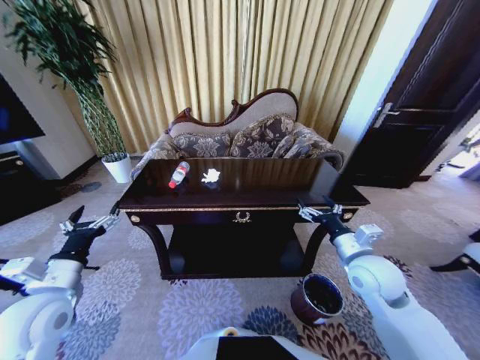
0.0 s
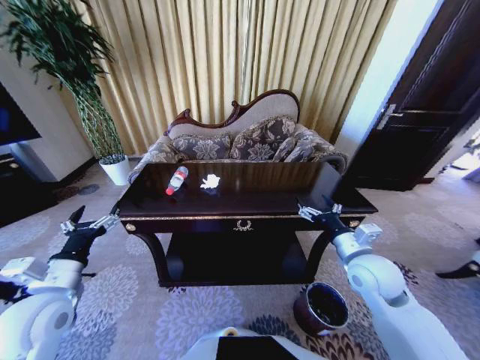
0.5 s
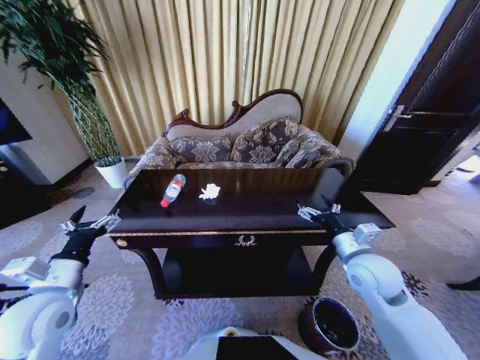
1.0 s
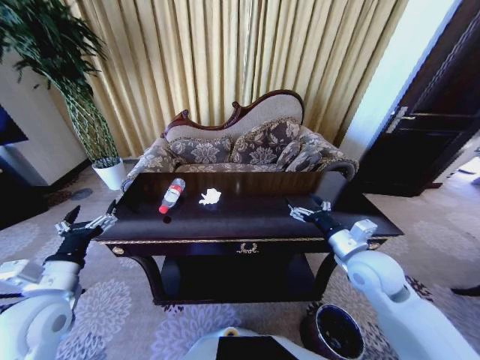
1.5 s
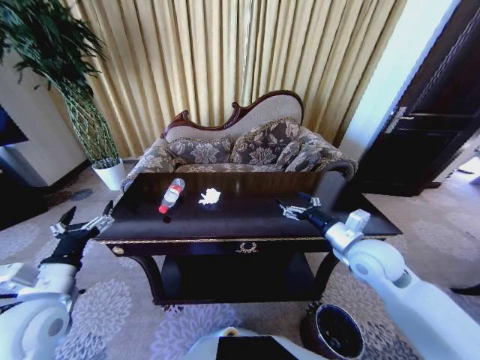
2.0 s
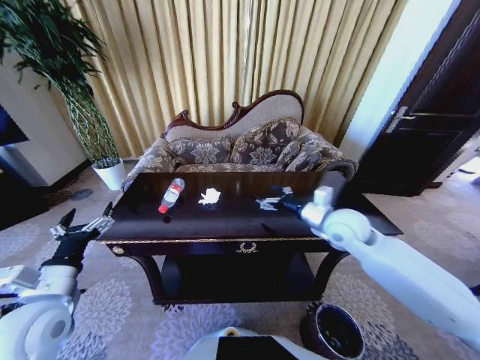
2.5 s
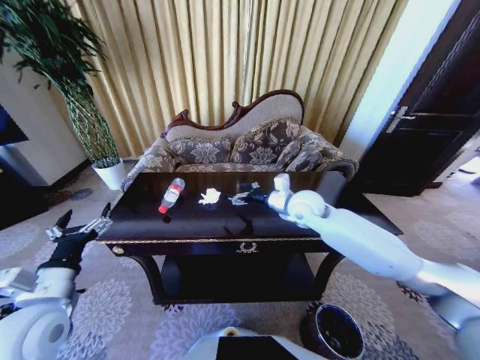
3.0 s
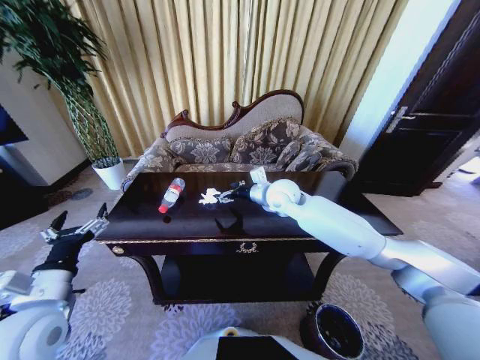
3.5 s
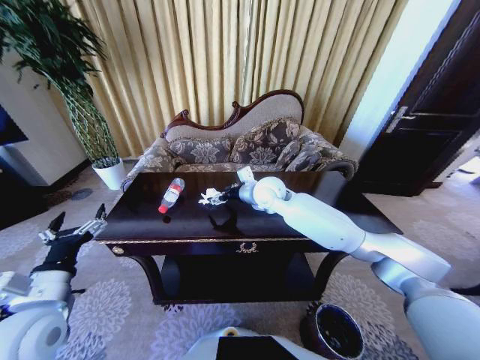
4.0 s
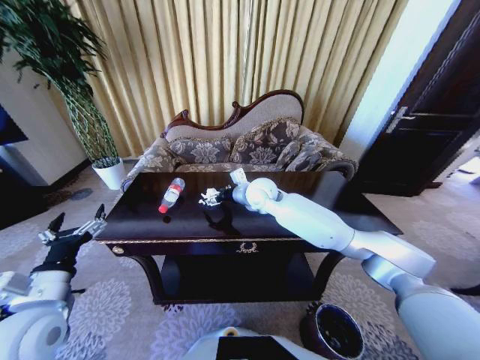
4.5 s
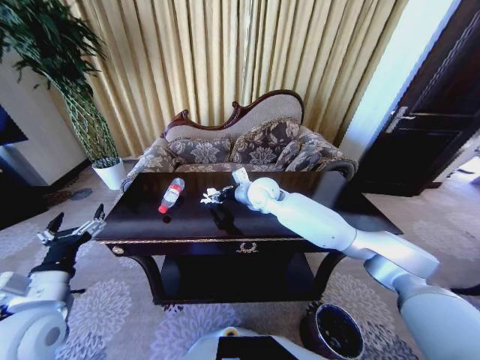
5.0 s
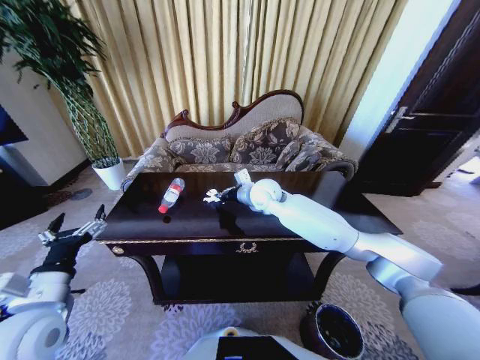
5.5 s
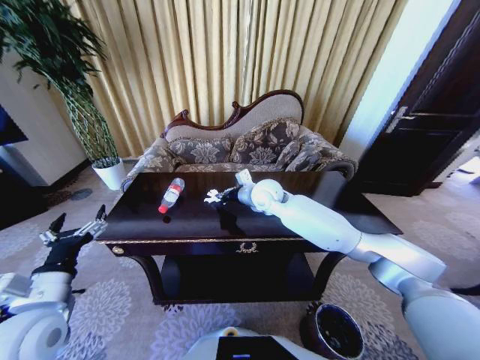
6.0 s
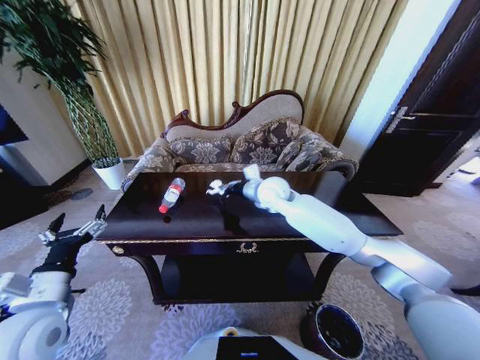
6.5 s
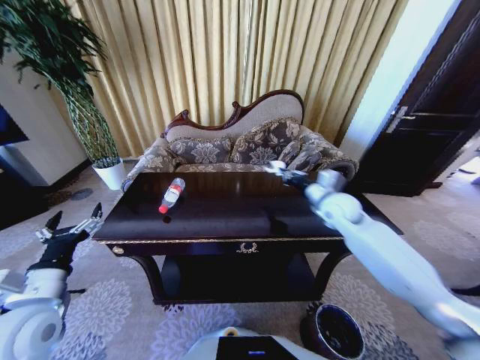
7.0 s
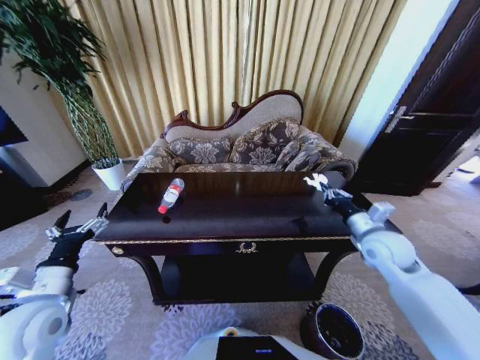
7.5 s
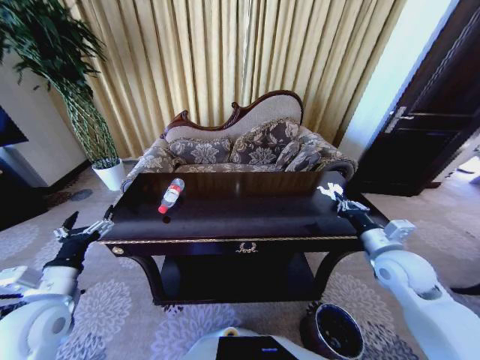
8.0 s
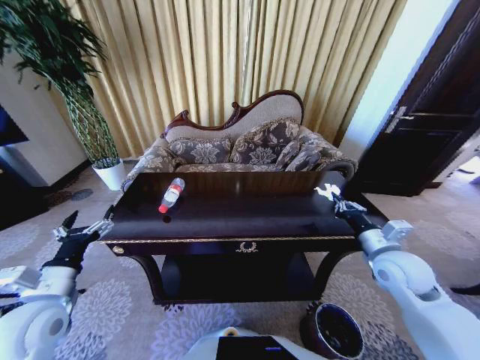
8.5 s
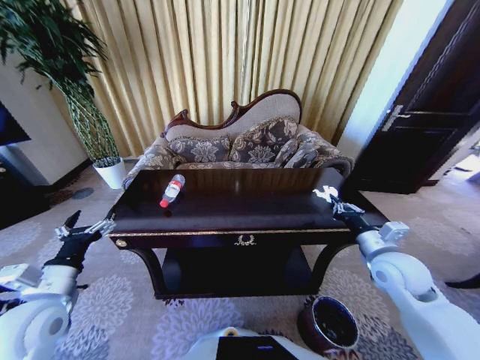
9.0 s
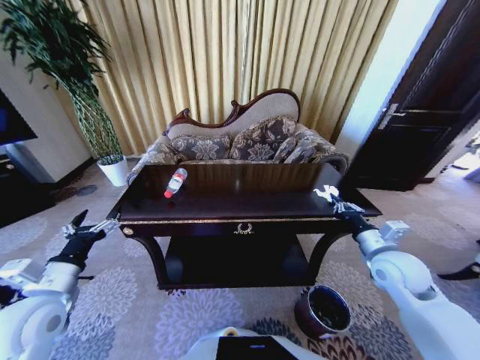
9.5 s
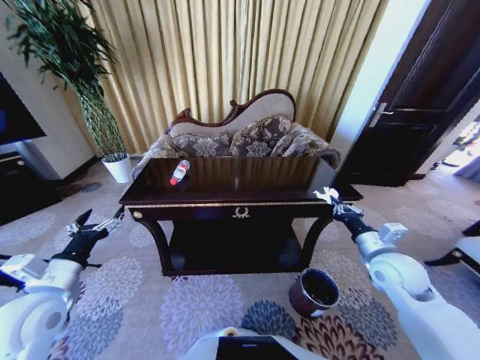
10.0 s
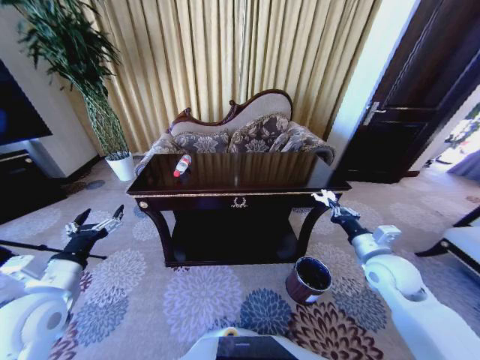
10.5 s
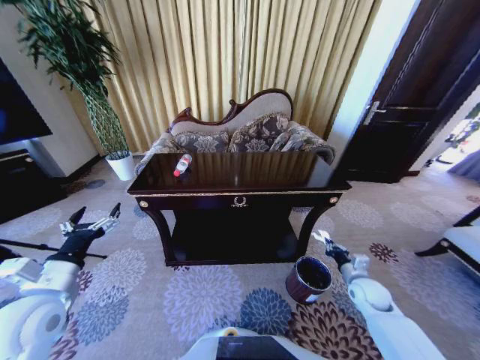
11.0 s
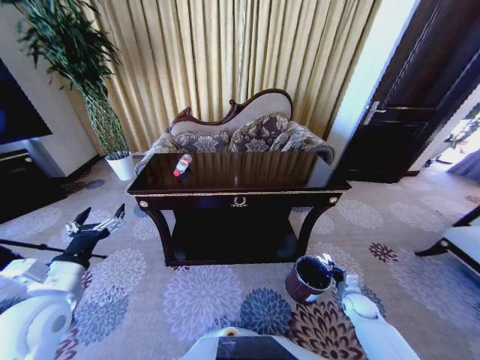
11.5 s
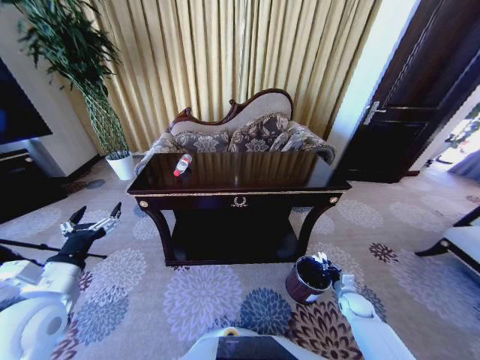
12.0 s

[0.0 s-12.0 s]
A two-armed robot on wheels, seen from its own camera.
Task of the whole recording: Move to the front of the table and place the trash on the table into the trash bin.
2.0 to 4.0 s: The right gripper heads to the left and forward, covering approximately 30 cm.
4.0 to 6.0 s: The right gripper closes its fingers.
6.0 to 8.0 s: The right gripper goes approximately 35 cm to the right and backward.
10.0 to 12.0 s: The right gripper is displaced downward by some 30 cm.

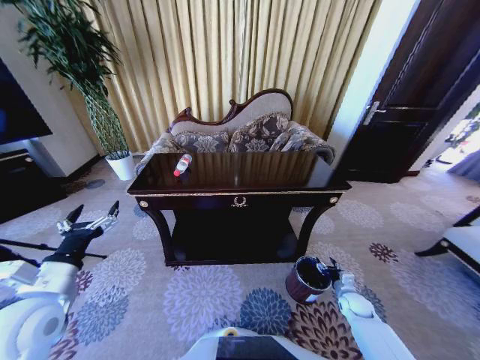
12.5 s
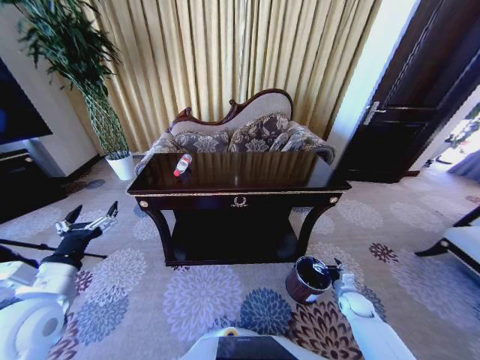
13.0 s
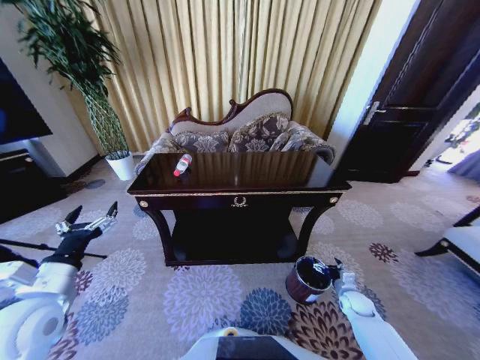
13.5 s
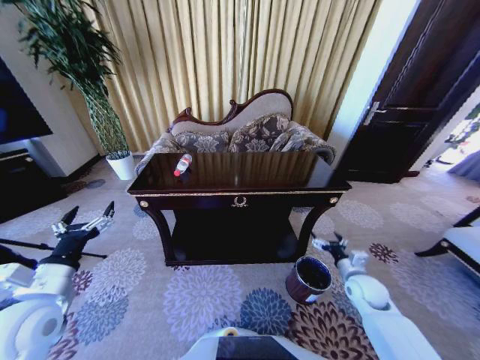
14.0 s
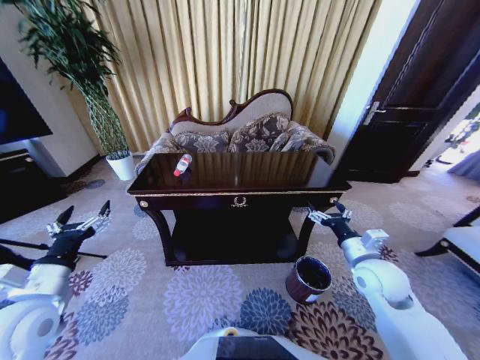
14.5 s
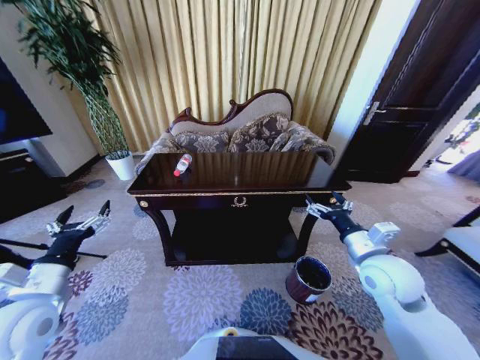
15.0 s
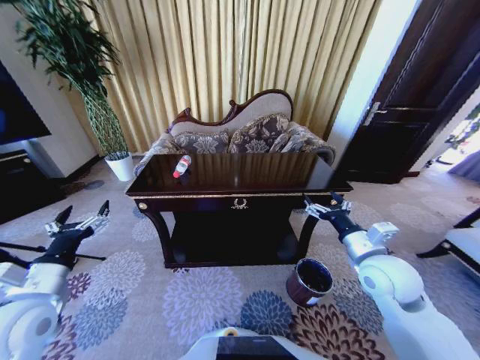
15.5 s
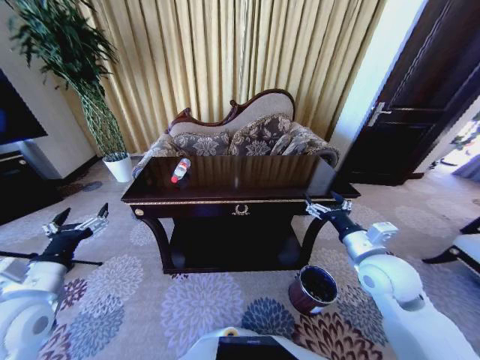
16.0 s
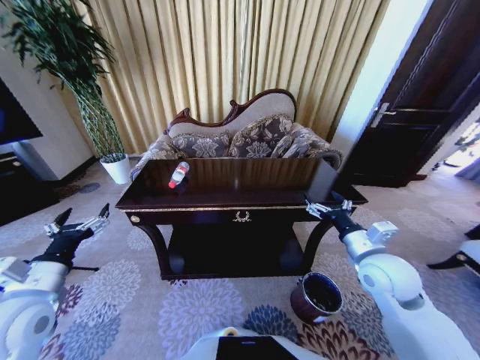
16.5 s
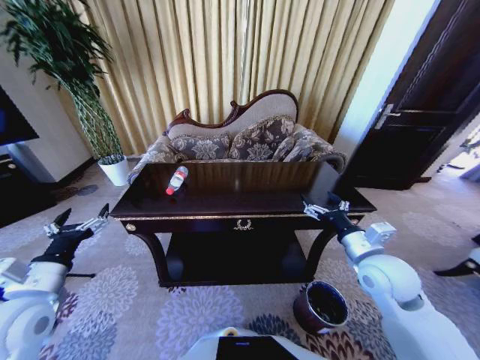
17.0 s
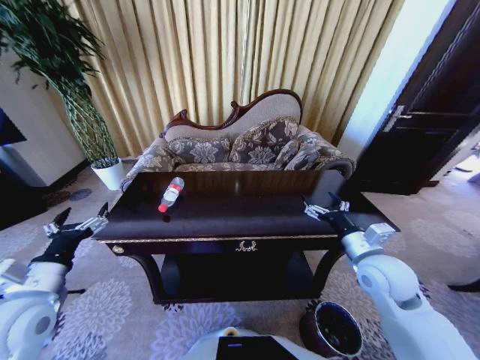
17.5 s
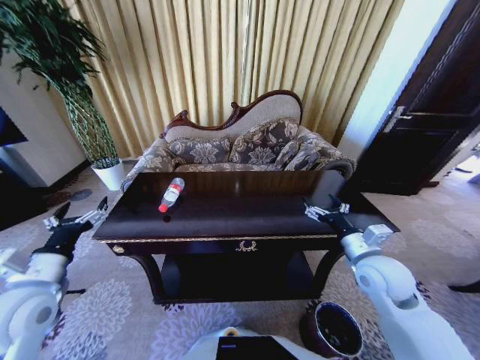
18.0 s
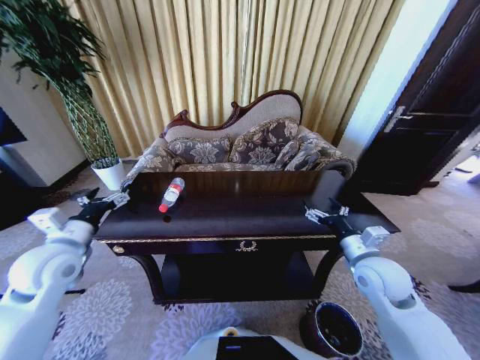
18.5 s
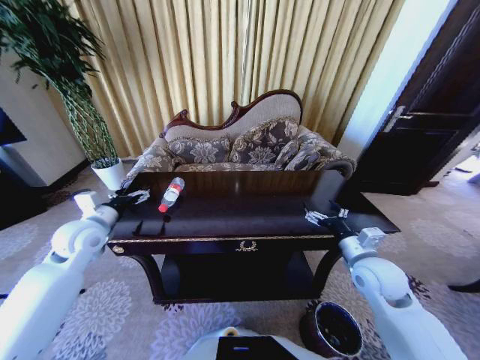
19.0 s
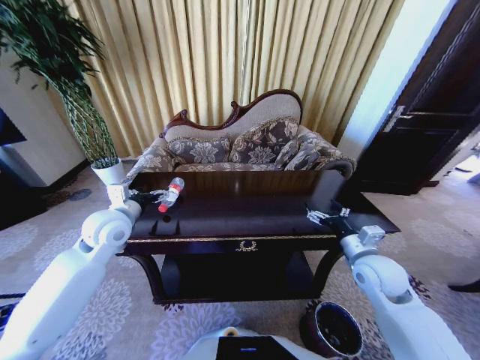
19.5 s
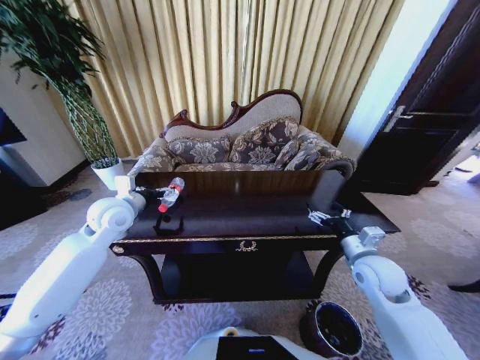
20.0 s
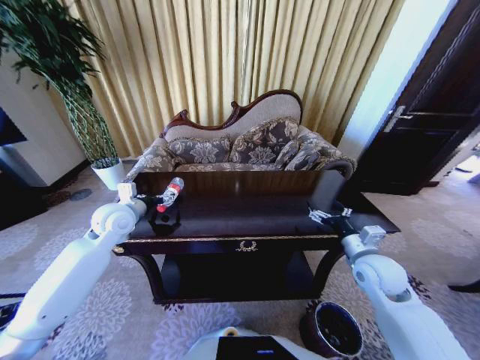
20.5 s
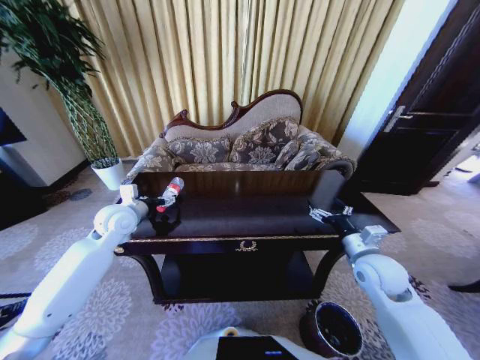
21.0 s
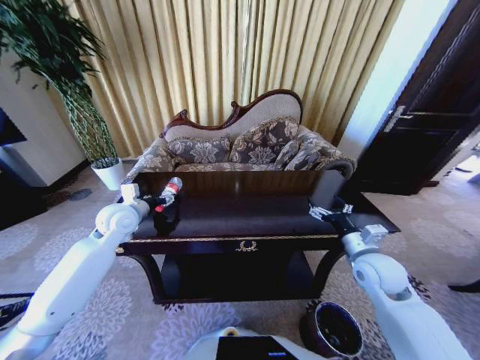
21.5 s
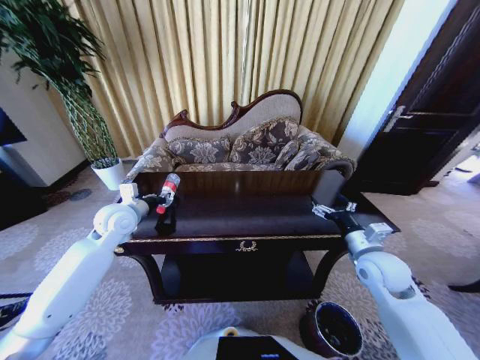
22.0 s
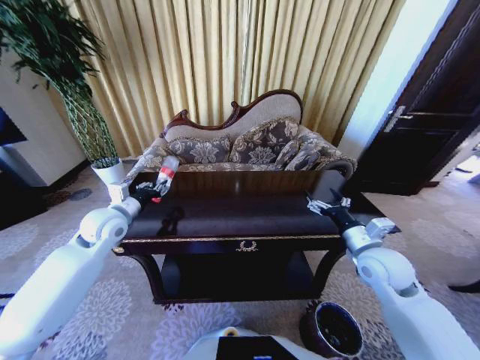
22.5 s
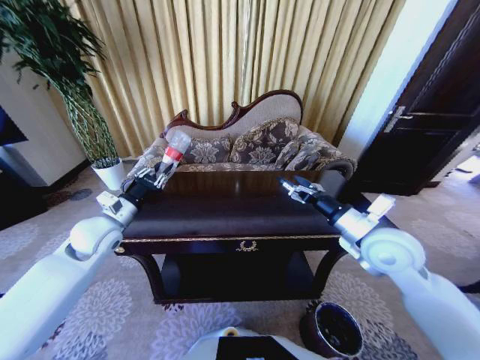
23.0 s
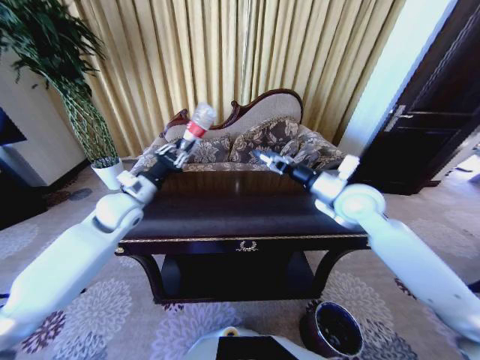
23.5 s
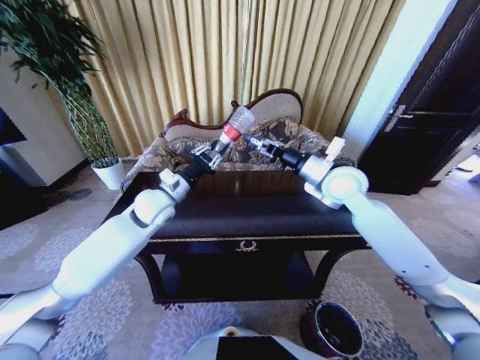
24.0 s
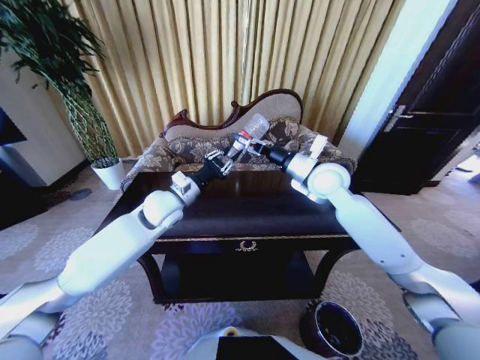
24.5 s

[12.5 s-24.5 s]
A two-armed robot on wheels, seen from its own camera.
Task of the whole recording: Move to the front of the table and place the trash on the table into the trash bin.
12.5 to 14.5 s: The right gripper shifts roughly 30 cm upward, and opens up.
16.5 to 18.5 s: The left gripper is displaced forward by some 10 cm.
18.5 to 20.5 s: The left gripper shifts some 15 cm forward and to the right.
20.5 to 22.5 s: The left gripper closes.
22.5 to 24.5 s: The right gripper heads forward, upward and to the left, covering roughly 25 cm; the left gripper travels to the right by roughly 15 cm.

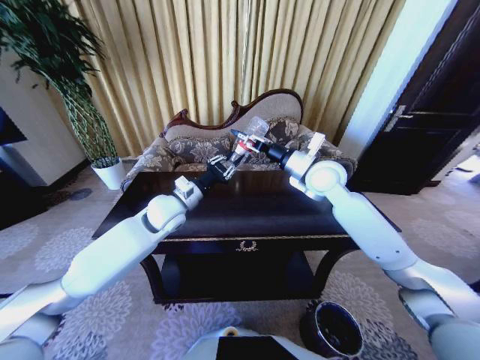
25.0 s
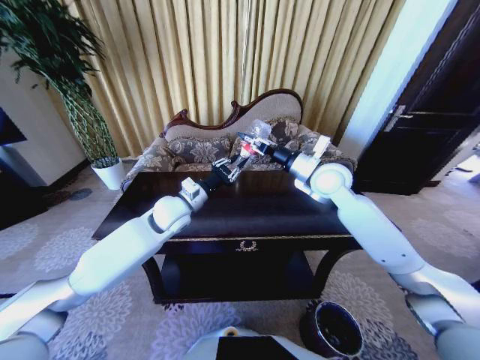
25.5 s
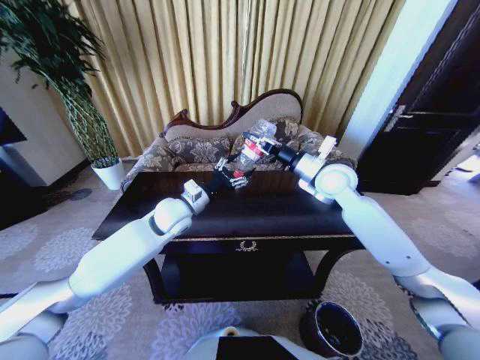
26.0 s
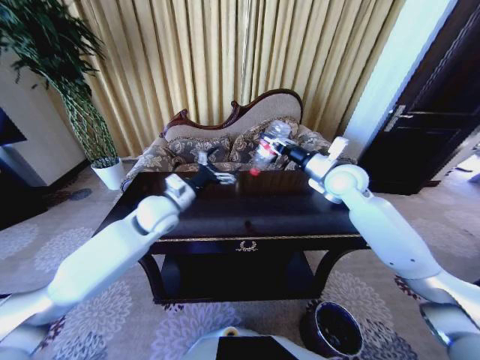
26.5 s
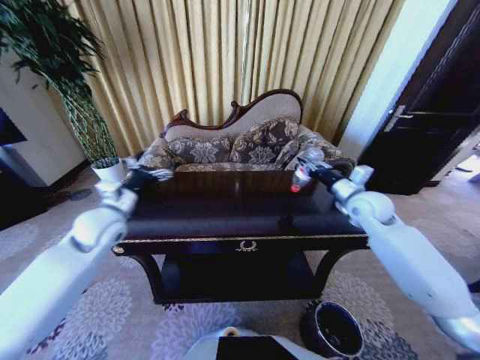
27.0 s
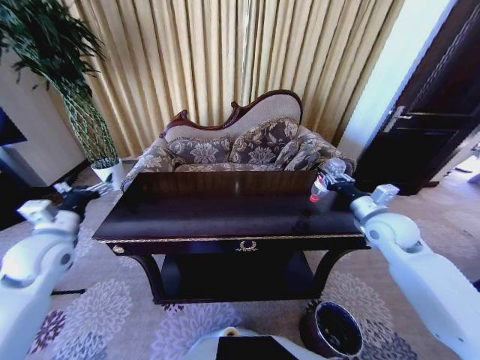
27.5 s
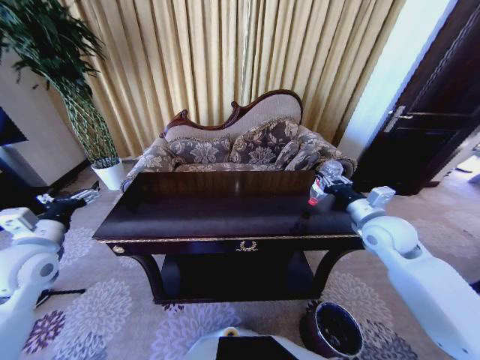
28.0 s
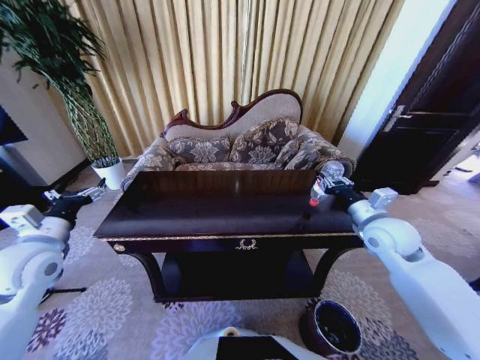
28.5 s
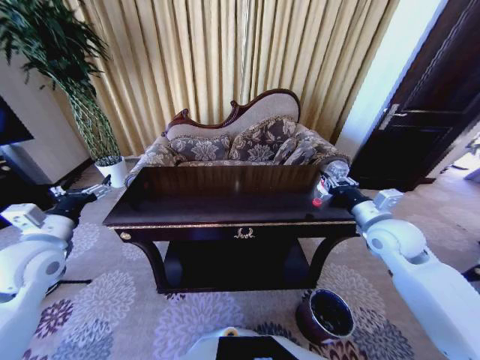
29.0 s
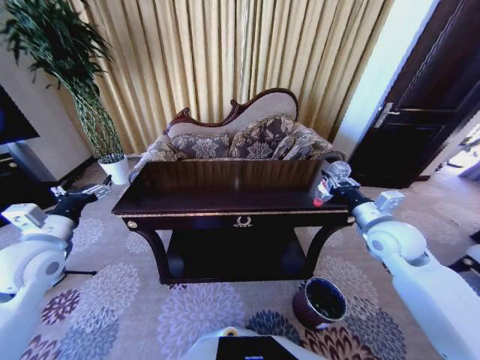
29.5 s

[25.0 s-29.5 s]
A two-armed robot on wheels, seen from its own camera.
Task of the whole recording: Move to the front of the table and place the trash on the table into the trash bin.
25.0 to 27.0 s: The left gripper shifts about 15 cm to the left, and opens up, while the right gripper travels to the right and downward by some 15 cm, and closes.
27.0 to 29.5 s: The right gripper moves backward, approximately 10 cm, while the left gripper goes roughly 15 cm backward and to the left.
